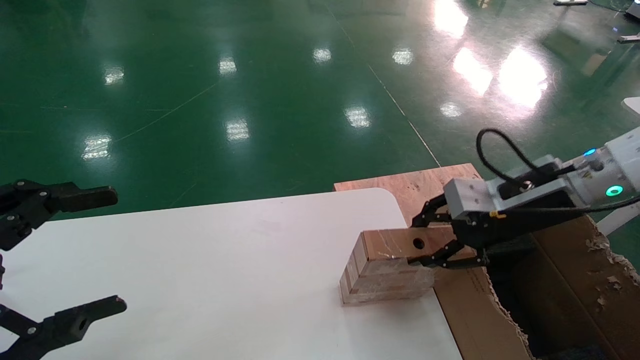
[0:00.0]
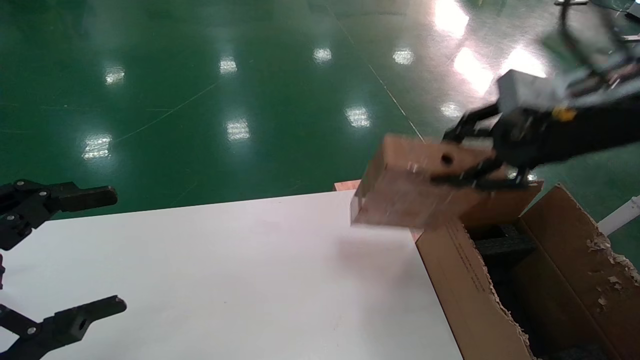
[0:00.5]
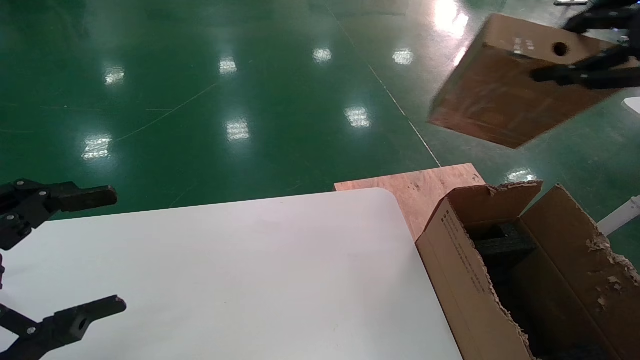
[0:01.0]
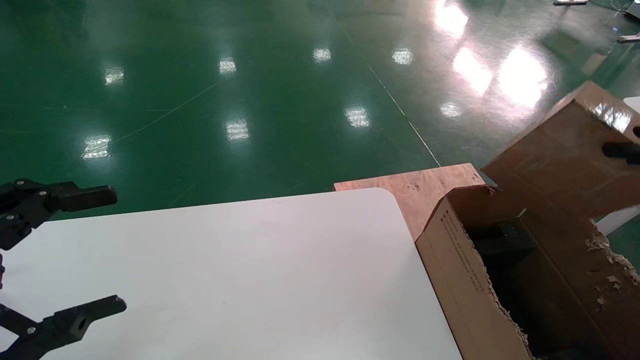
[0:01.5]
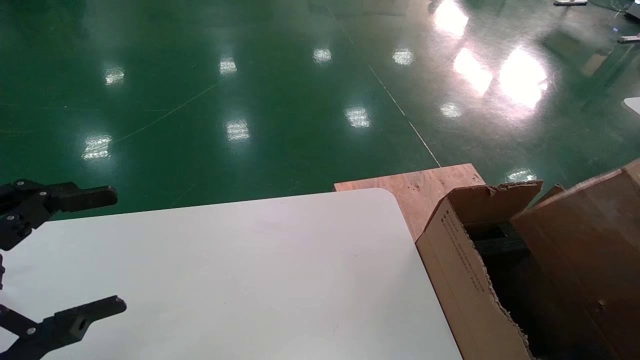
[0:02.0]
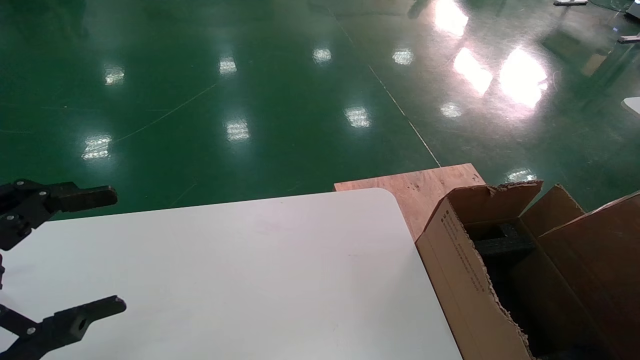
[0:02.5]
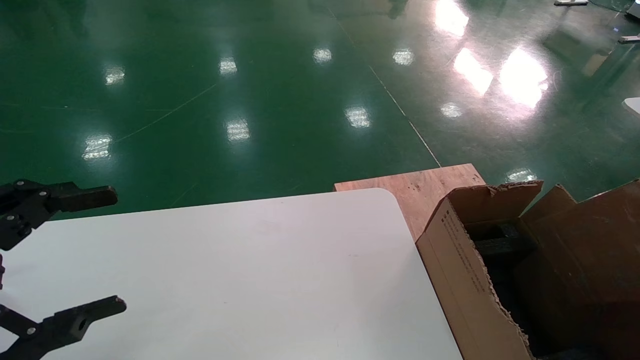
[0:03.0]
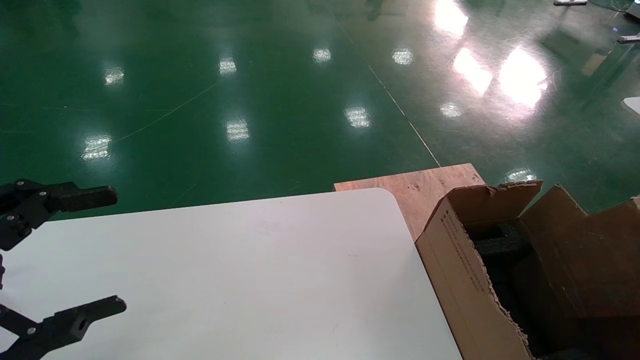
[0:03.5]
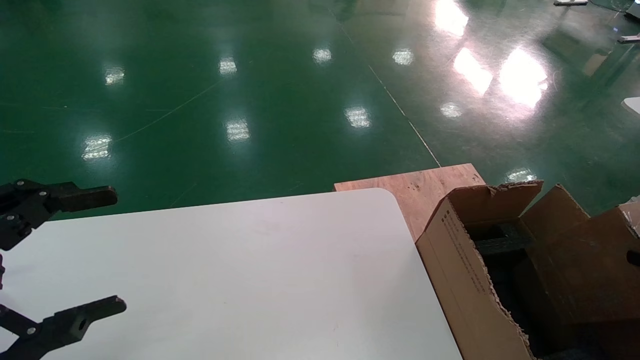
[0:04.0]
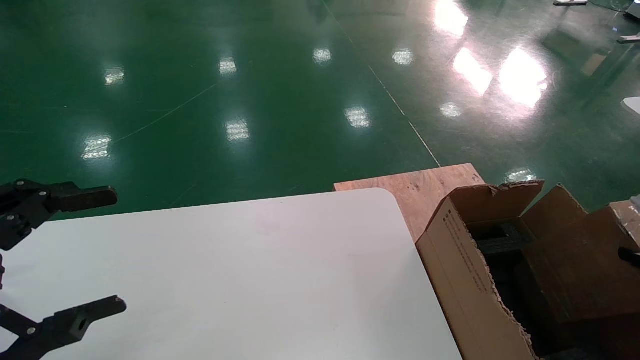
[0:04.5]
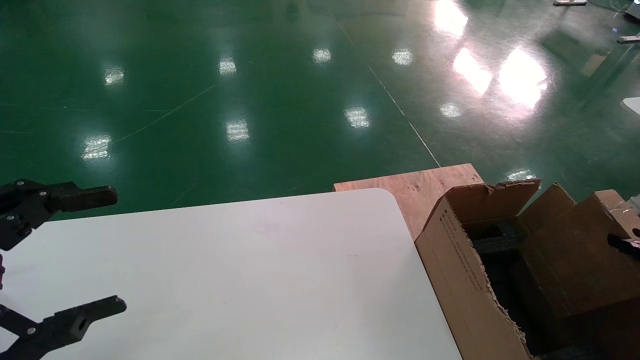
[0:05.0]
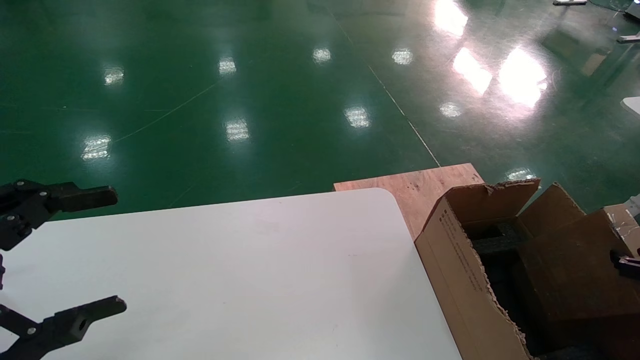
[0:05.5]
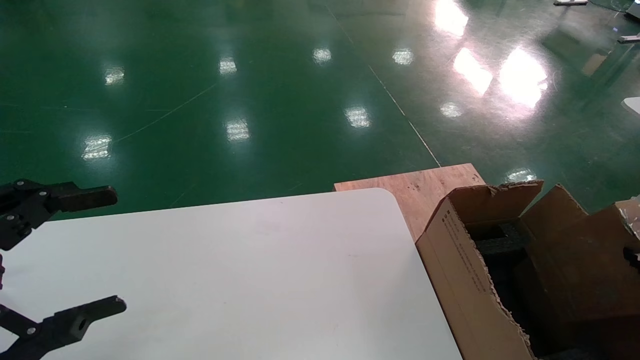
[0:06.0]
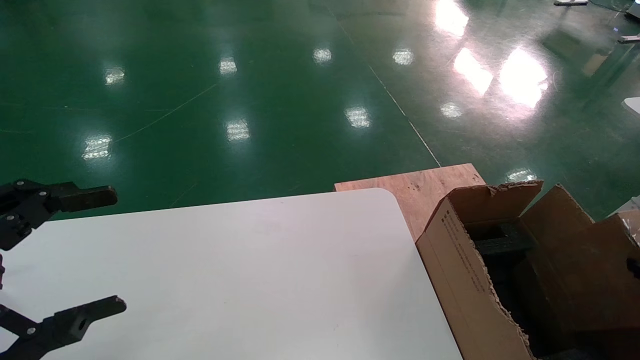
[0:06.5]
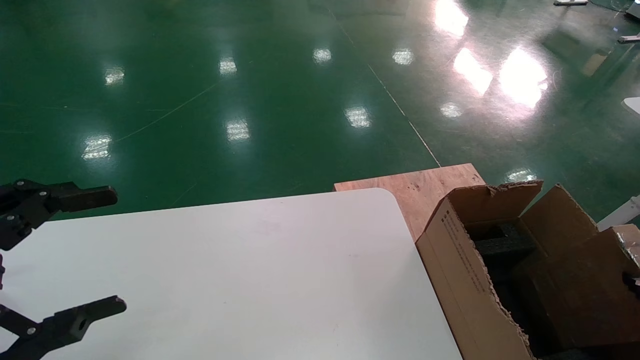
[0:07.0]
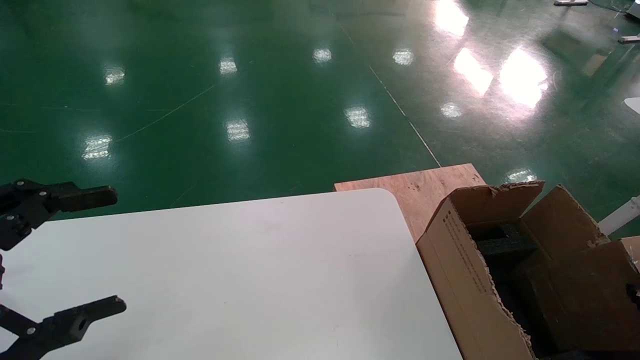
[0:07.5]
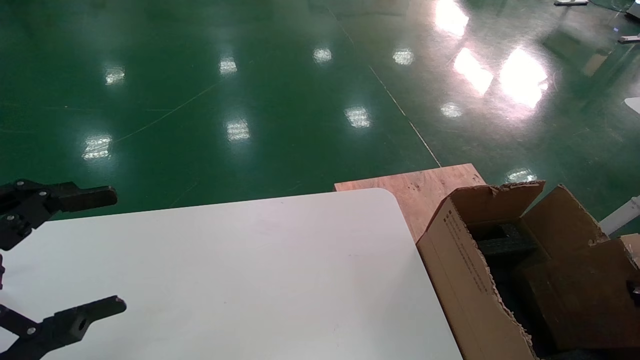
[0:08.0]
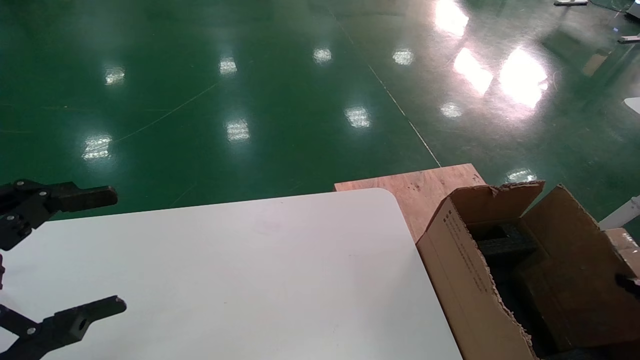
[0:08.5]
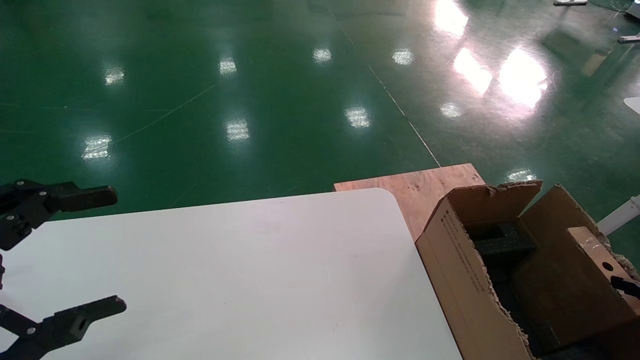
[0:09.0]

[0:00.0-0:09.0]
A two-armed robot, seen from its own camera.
Task of the whole recording: put the box on the table into the big box.
0:00.0 to 0:02.0: The right gripper shifts about 30 cm backward and to the right.
0:02.0 to 0:04.5: The right gripper shifts some 15 cm downward, to the right and forward.
0:07.0 to 0:09.0: The right gripper opens its fingers.

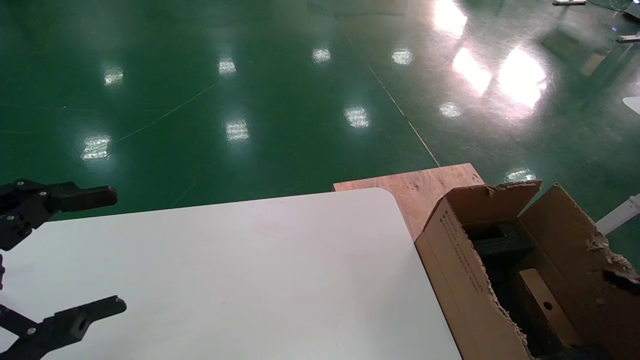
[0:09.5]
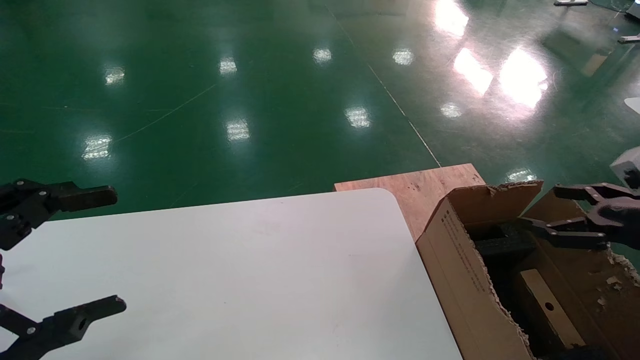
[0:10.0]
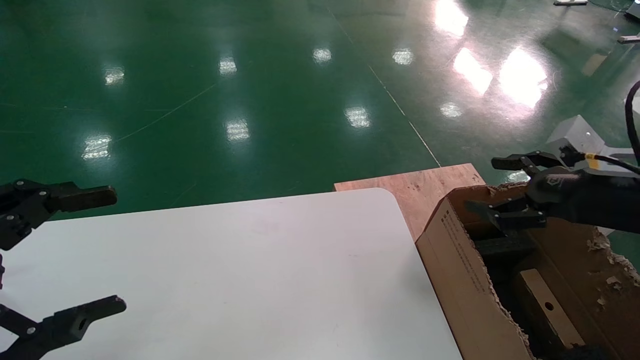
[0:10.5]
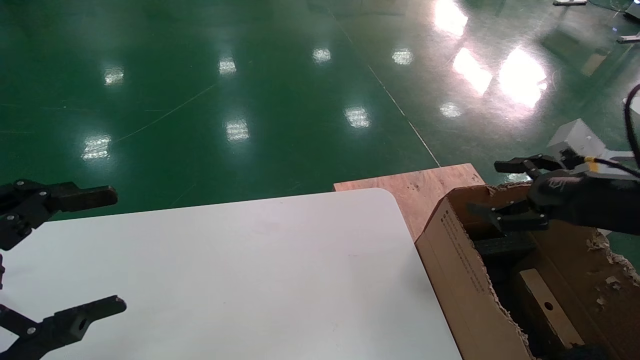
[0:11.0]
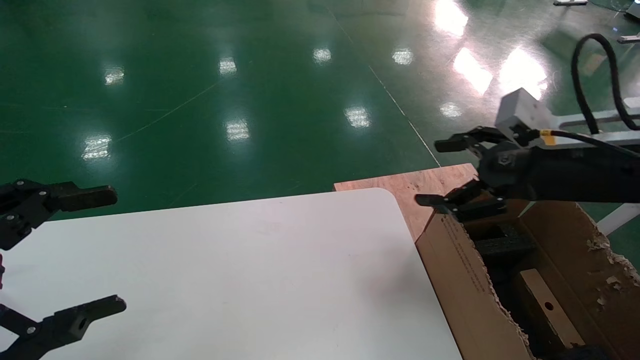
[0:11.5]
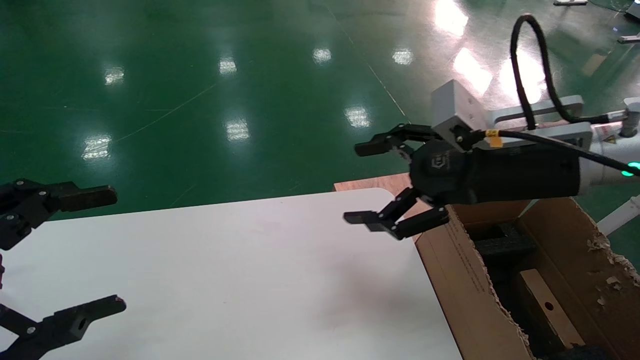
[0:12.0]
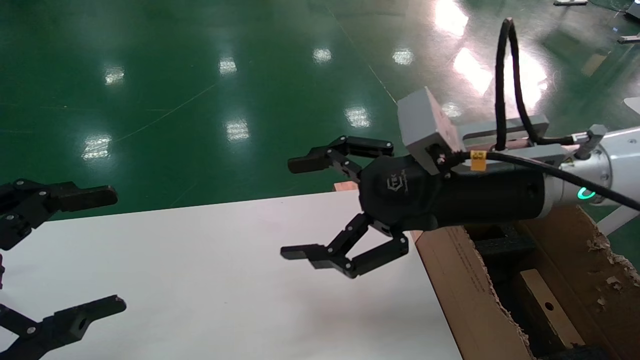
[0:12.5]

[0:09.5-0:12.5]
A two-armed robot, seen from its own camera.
Task of the whole recording: put the box on the table into the big box.
0:09.5 to 0:11.0: The right gripper moves to the left, upward and forward, approximately 20 cm.
0:11.0 to 0:12.5: The right gripper travels to the left by about 20 cm.
